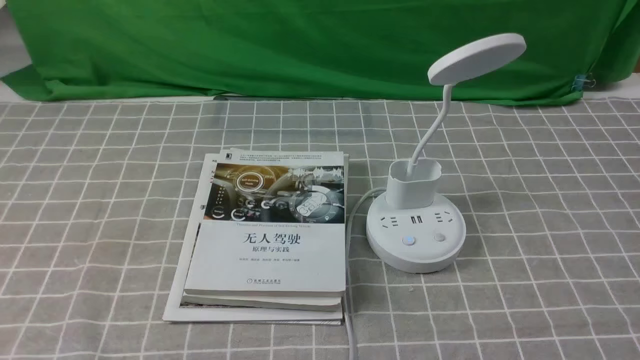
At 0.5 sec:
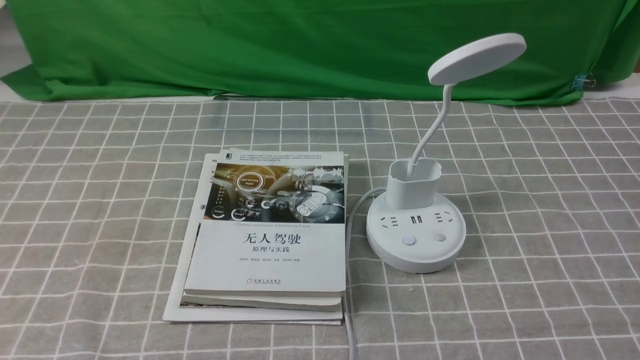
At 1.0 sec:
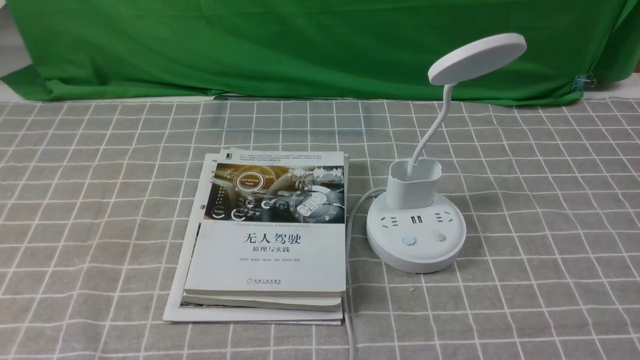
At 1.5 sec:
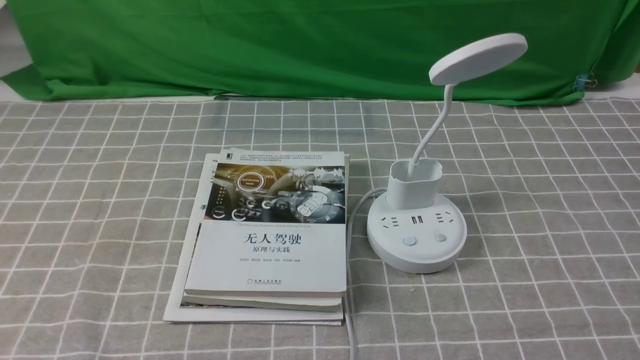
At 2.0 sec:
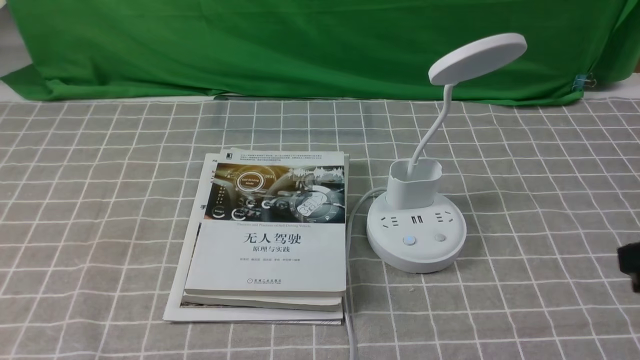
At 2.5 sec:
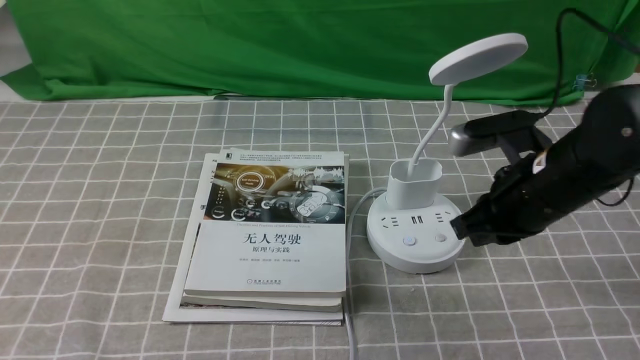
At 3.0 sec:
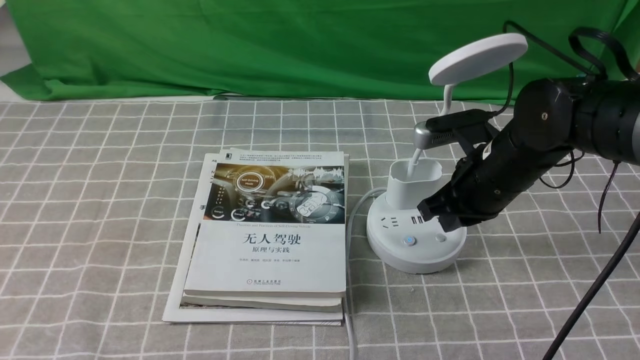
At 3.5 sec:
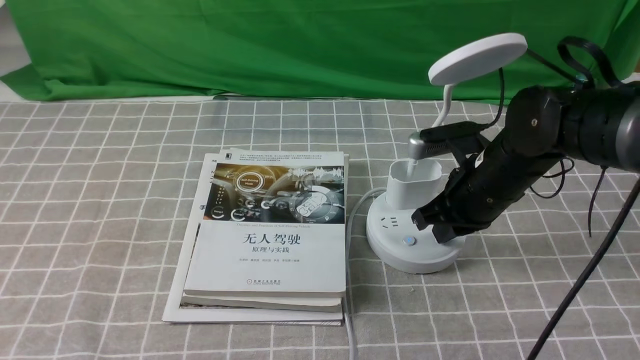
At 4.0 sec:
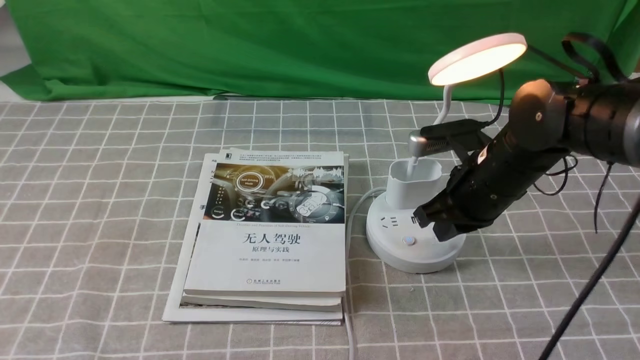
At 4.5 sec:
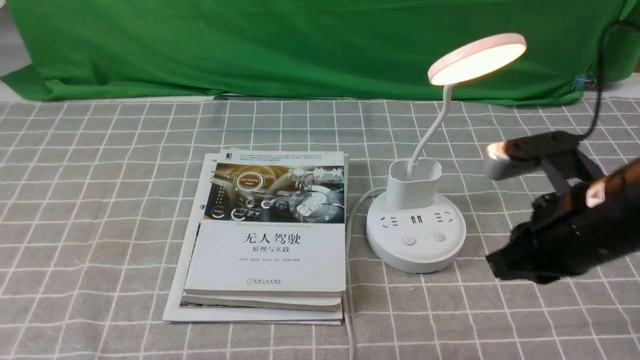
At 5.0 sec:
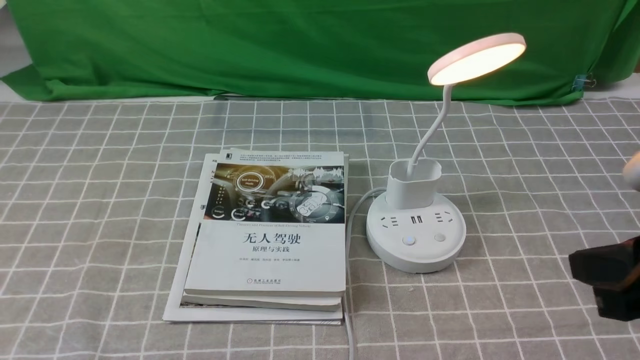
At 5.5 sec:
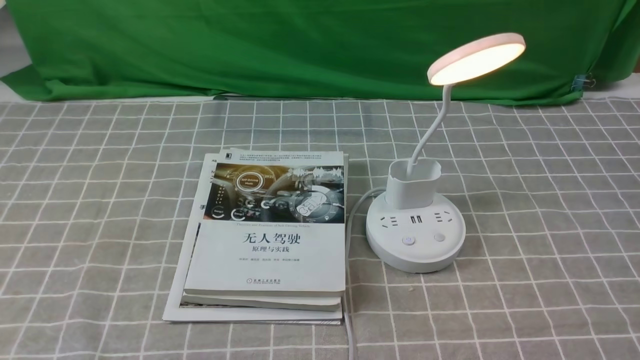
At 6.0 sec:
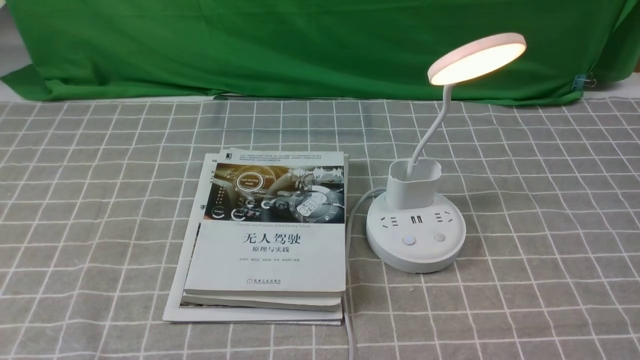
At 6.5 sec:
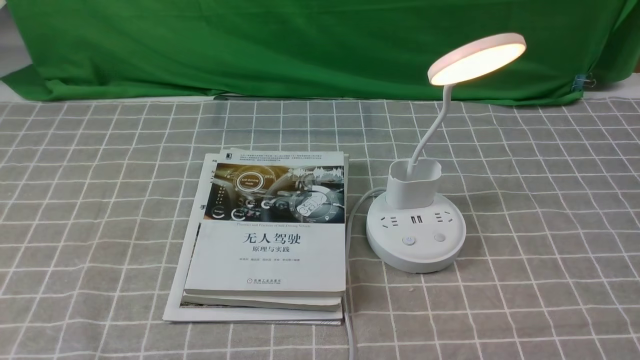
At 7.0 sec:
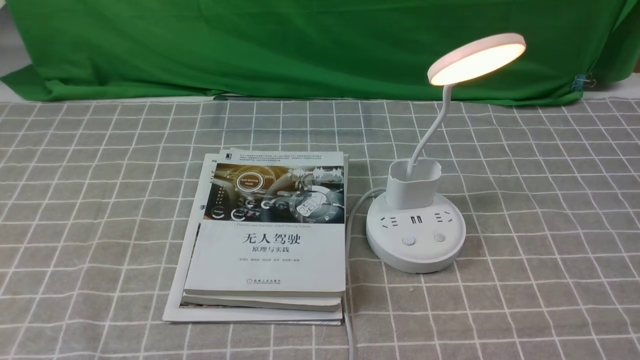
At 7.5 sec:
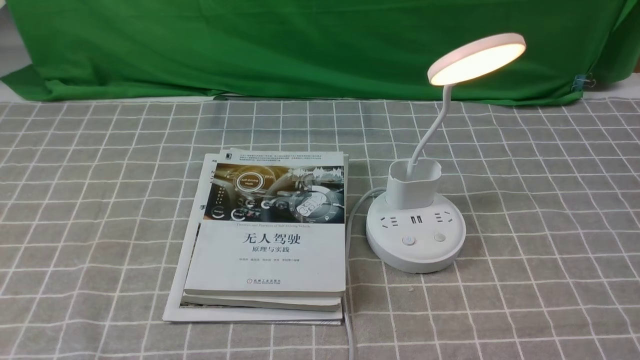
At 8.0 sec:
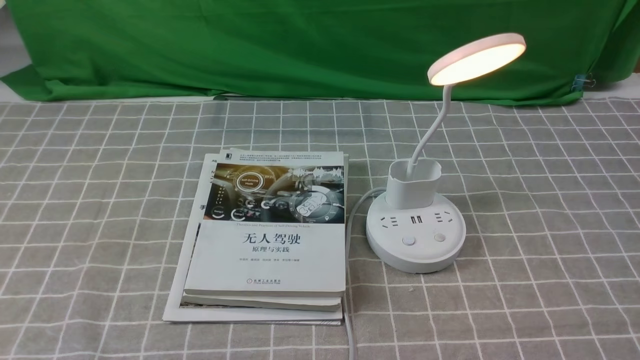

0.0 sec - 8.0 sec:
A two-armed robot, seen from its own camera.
Step, 0.0 sec - 4.0 sec: use the right arm to press the button switch on the lamp holder.
2.0 sec - 4.0 sec: The right gripper moves forward, downward and to the left, approximately 25 cm.
4.0 sec - 6.0 sec: The right gripper is displaced backward and to the right by roughly 30 cm.
